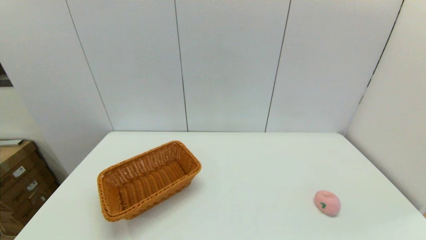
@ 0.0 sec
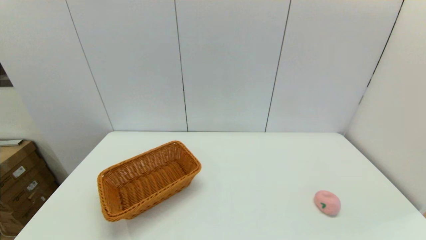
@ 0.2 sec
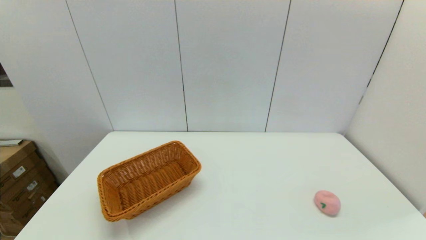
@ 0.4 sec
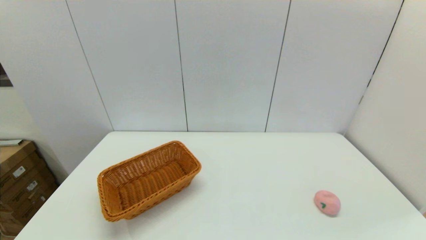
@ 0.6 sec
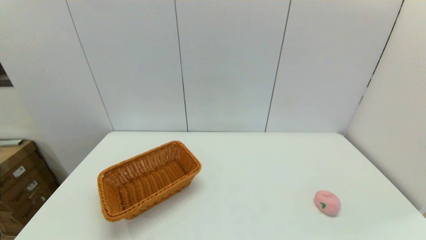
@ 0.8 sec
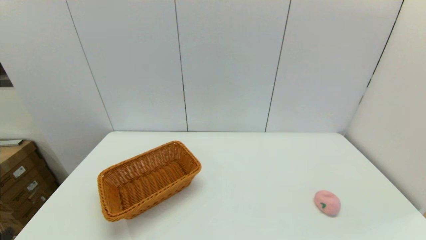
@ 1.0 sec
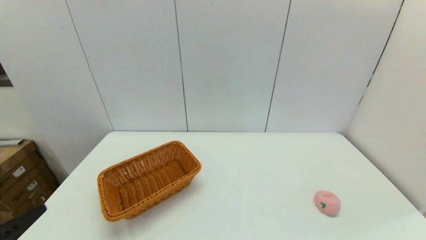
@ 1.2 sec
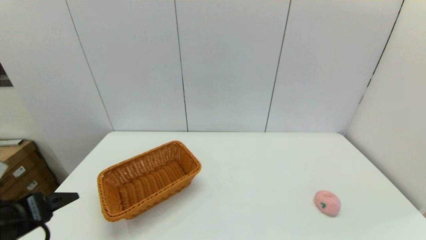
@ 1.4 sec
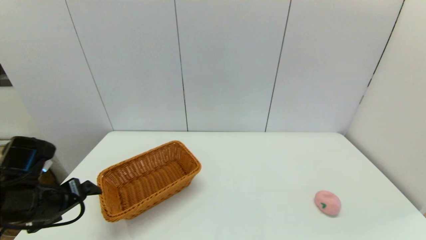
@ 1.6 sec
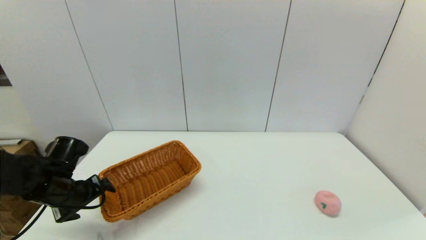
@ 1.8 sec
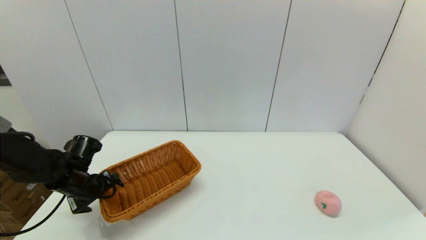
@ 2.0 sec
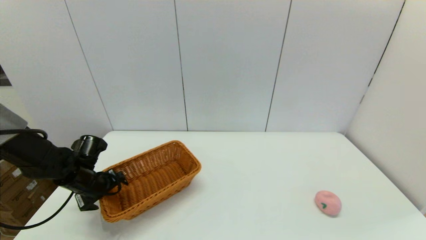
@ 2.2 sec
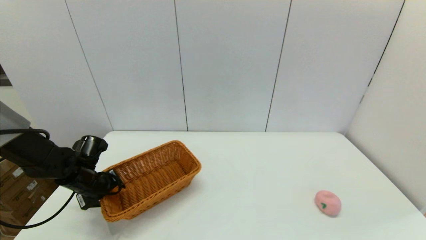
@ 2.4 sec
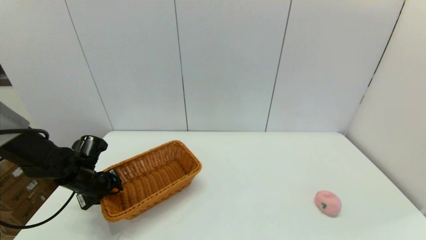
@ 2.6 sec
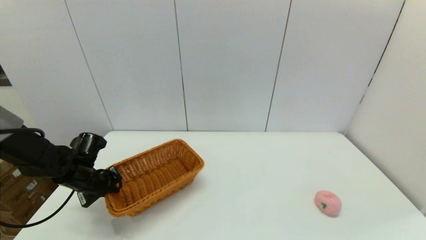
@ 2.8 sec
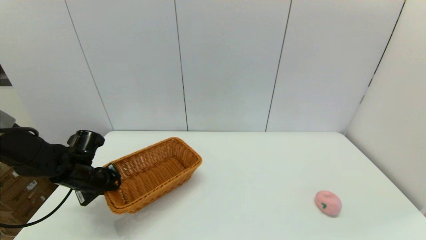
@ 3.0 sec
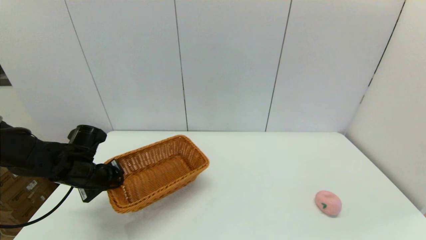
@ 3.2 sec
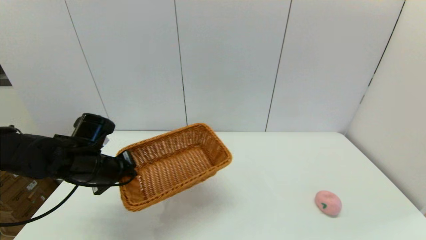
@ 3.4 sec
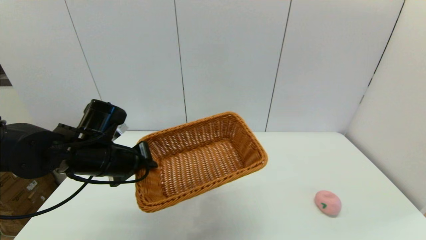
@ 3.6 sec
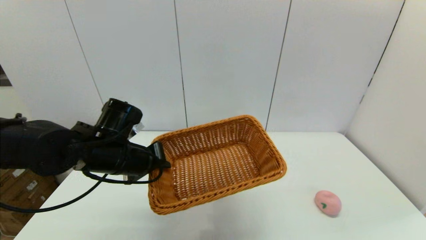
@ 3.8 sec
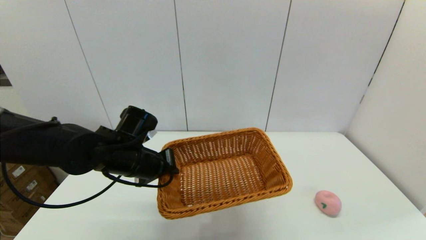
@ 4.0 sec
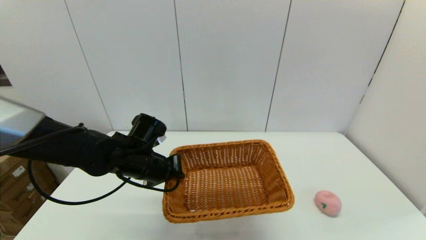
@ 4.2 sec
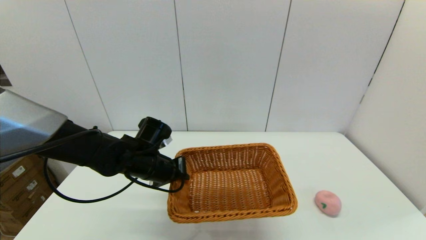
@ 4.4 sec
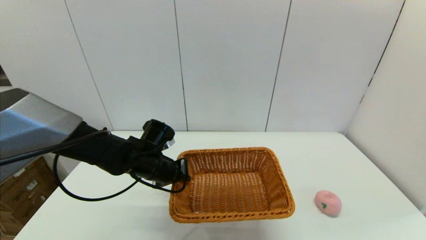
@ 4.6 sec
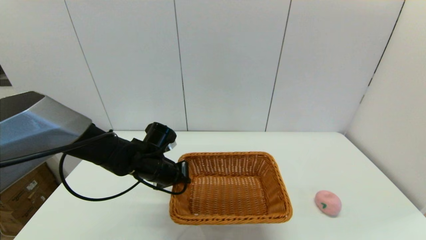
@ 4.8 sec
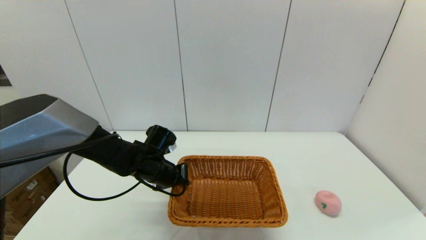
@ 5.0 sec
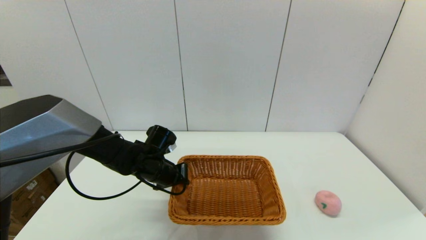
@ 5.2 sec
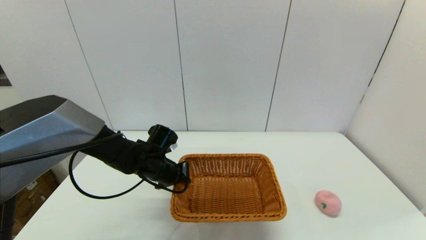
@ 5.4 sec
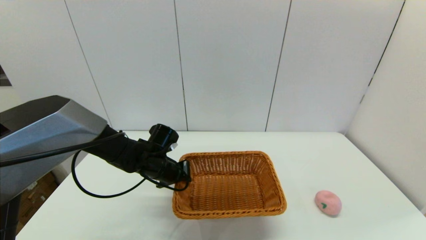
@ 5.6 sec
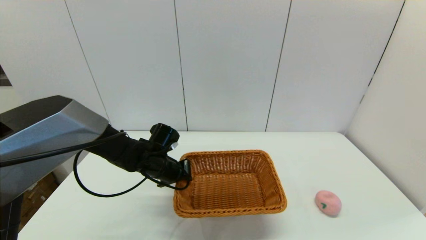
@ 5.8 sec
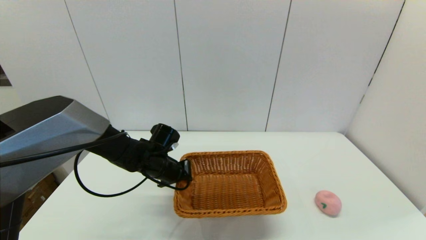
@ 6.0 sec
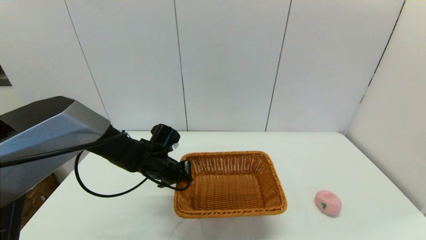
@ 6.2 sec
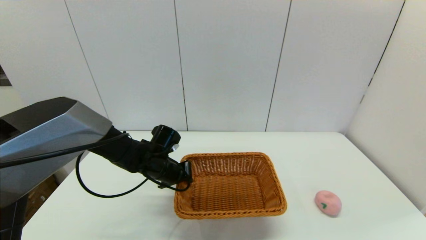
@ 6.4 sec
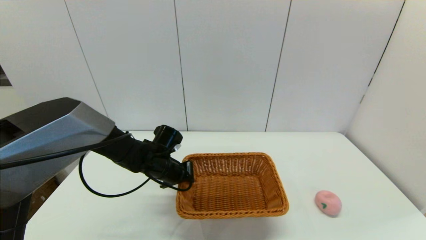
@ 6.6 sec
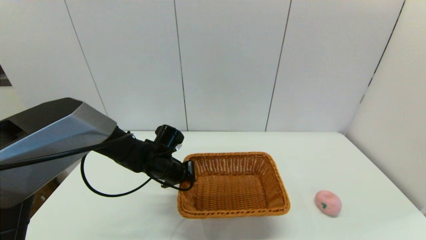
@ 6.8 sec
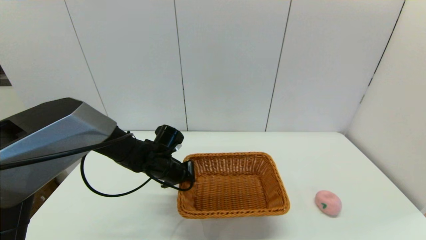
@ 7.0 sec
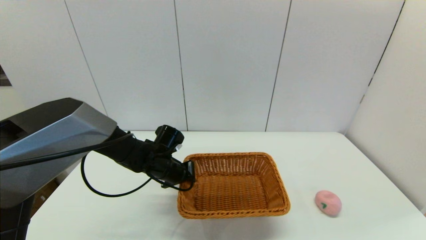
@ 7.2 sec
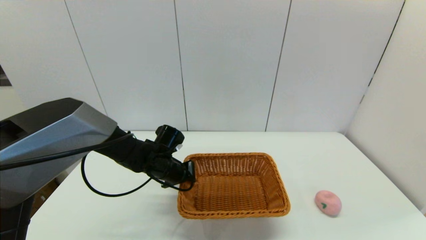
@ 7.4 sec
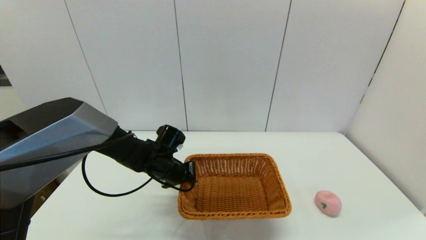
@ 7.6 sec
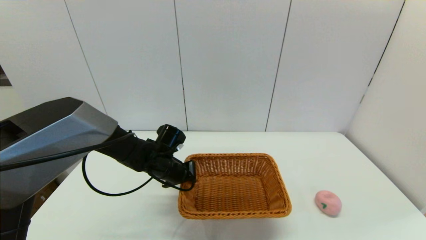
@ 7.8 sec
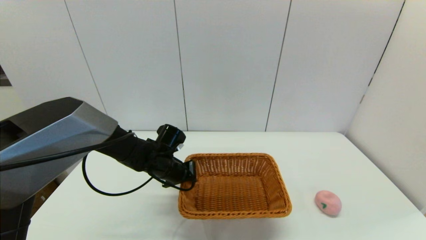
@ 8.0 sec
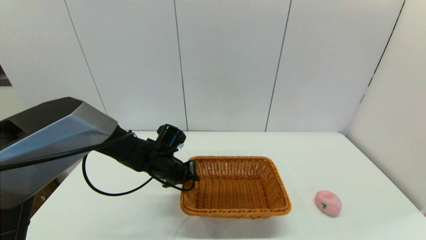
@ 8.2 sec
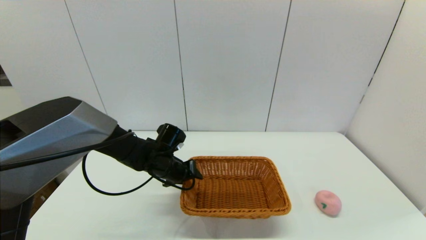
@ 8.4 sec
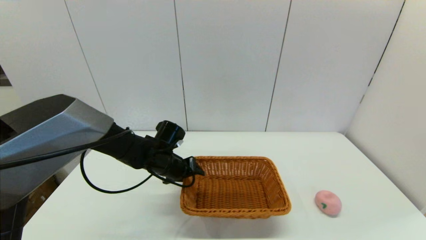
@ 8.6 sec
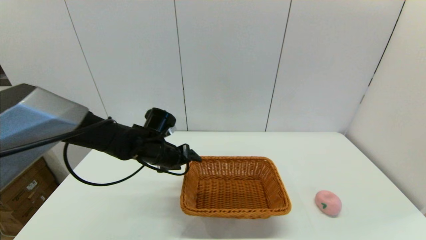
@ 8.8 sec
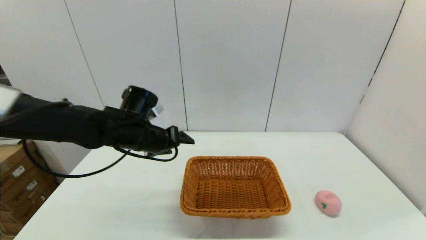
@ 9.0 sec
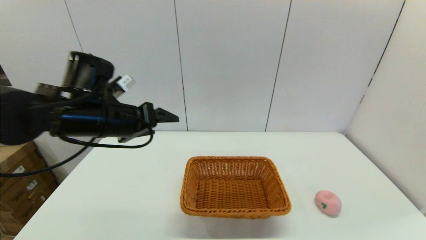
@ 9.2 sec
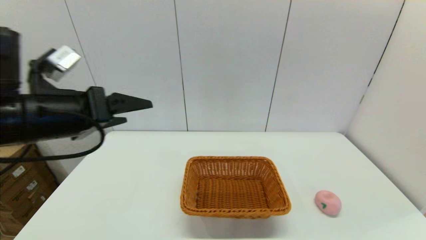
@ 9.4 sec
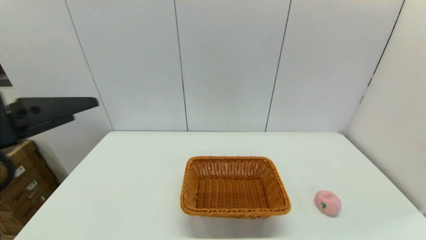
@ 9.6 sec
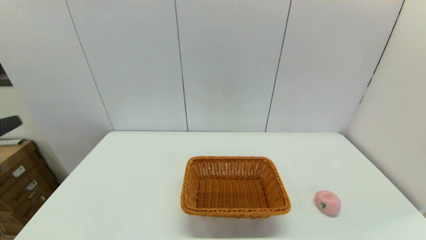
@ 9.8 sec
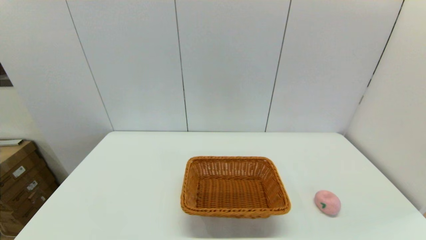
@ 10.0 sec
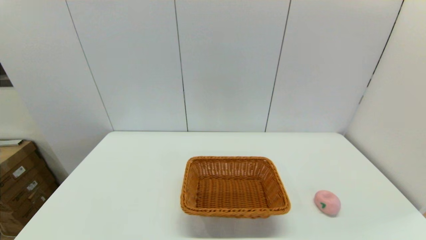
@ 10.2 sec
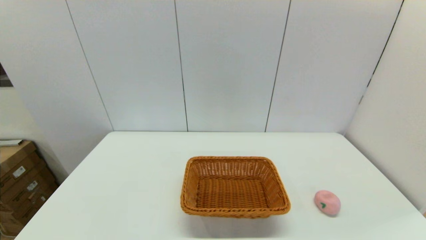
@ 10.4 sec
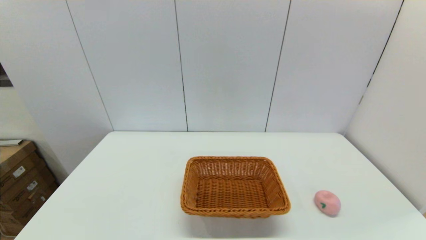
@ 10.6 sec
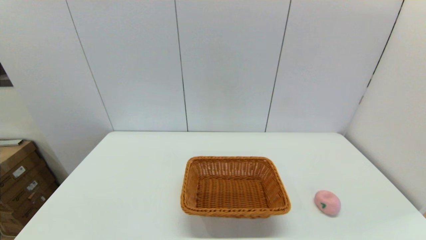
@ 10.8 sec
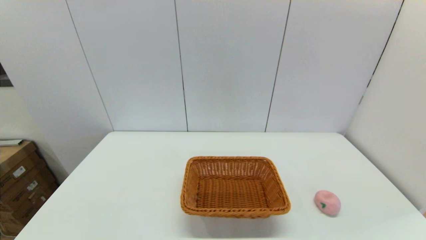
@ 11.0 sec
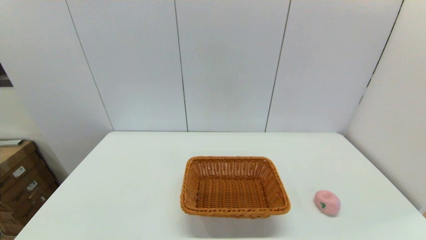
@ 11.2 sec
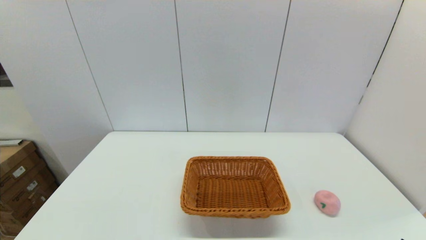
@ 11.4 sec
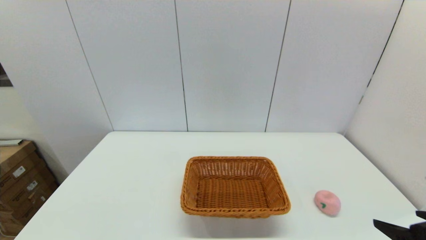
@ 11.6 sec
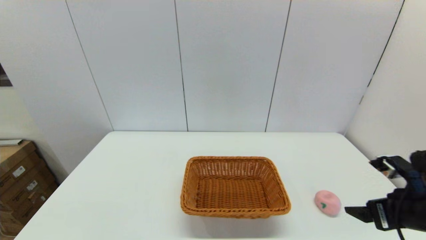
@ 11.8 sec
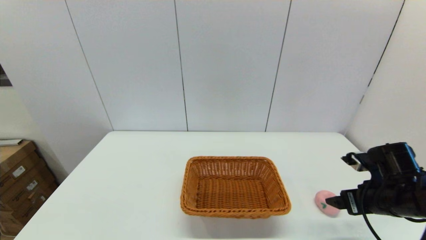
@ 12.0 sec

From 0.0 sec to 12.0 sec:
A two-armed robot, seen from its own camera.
Step, from 0.0 sec to 2.8 sec: Grasp the light basket with the left gripper.
Step, from 3.2 sec to 8.4 sec: Place the light basket on the middle of the table with the left gripper.
From 0.0 sec to 1.6 sec: The left gripper moves forward, some 20 cm.
From 1.6 sec to 3.0 sec: The left gripper goes some 10 cm forward and downward, and closes up.
From 3.0 sec to 4.4 sec: The left gripper goes approximately 15 cm to the right.
From 4.4 sec to 6.0 sec: The left gripper changes place by roughly 5 cm.
From 6.0 sec to 7.6 sec: The two grippers keep their place.
From 7.6 sec to 9.0 sec: The left gripper moves upward, about 10 cm, and opens.
From 9.0 sec to 10.4 sec: The left gripper is displaced backward and to the left by roughly 35 cm.
From 10.4 sec to 12.0 sec: The right gripper travels forward by approximately 25 cm.

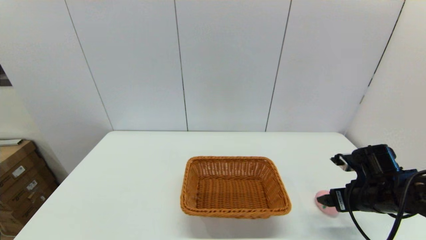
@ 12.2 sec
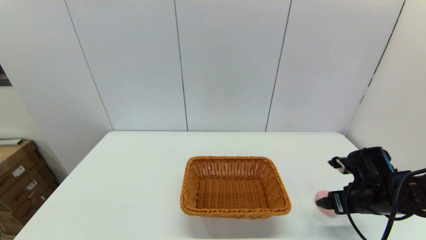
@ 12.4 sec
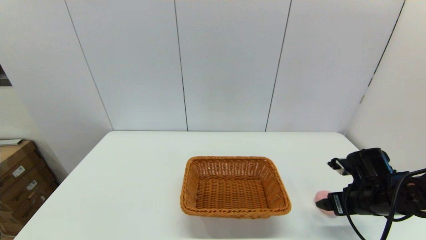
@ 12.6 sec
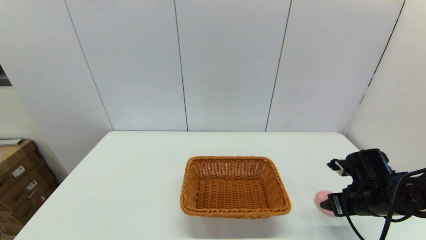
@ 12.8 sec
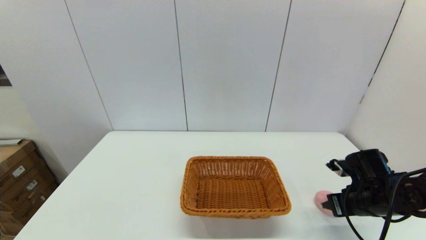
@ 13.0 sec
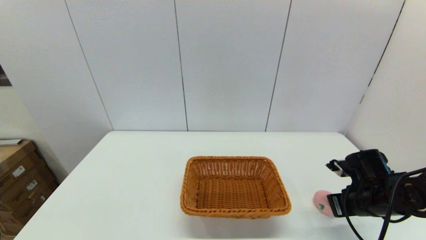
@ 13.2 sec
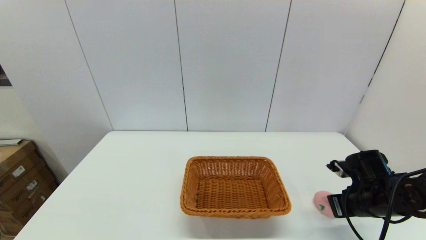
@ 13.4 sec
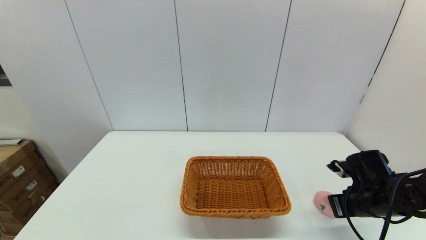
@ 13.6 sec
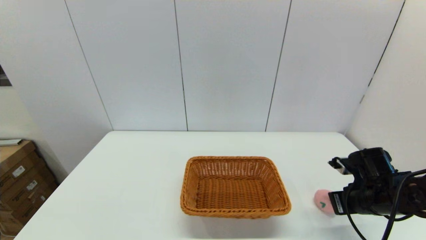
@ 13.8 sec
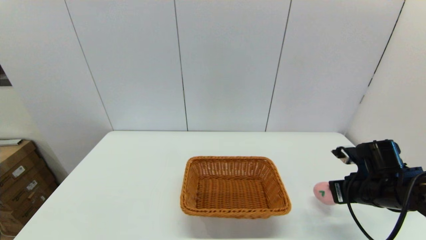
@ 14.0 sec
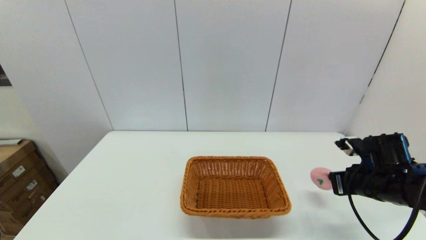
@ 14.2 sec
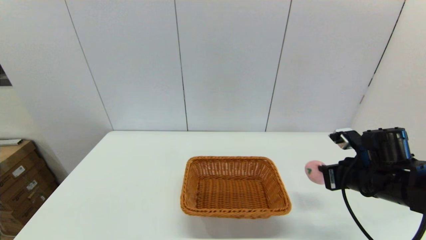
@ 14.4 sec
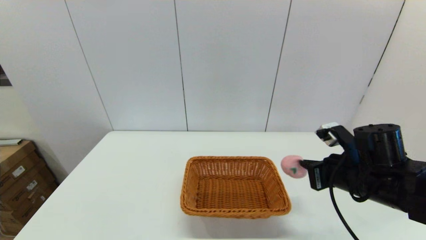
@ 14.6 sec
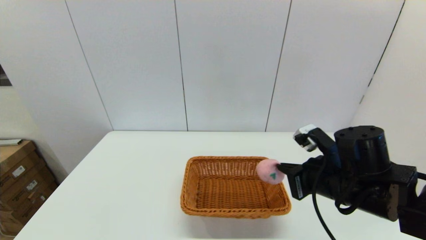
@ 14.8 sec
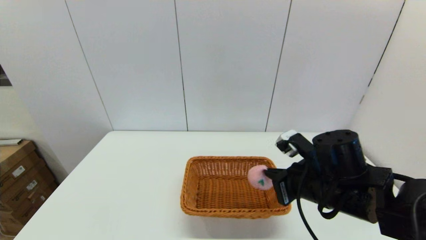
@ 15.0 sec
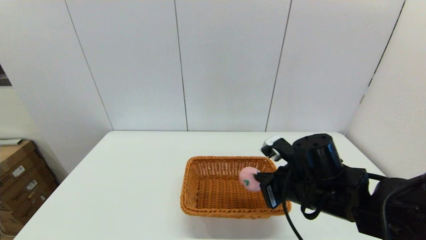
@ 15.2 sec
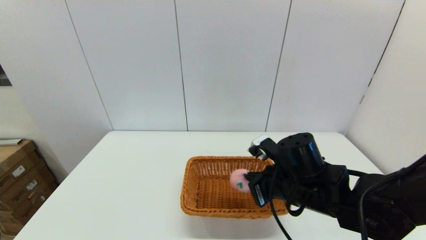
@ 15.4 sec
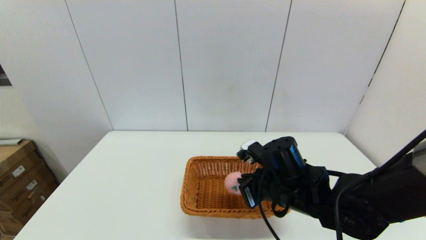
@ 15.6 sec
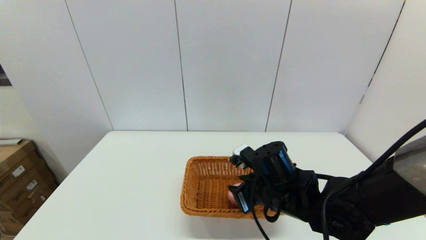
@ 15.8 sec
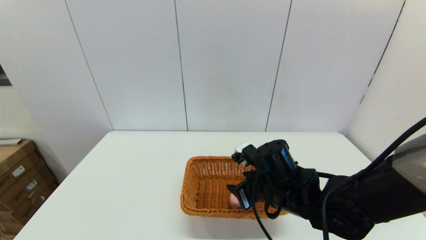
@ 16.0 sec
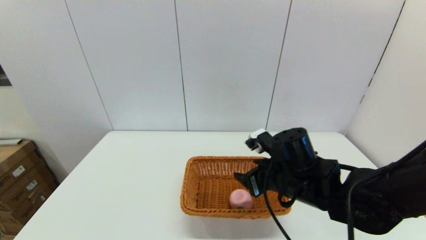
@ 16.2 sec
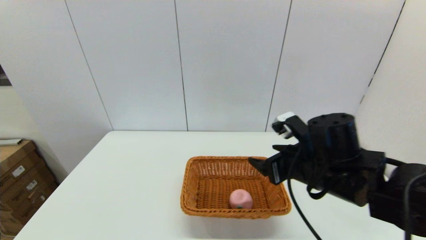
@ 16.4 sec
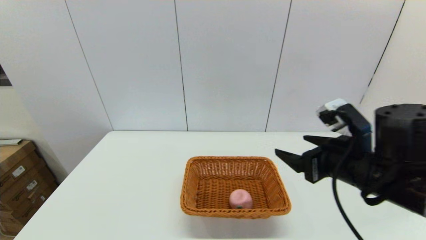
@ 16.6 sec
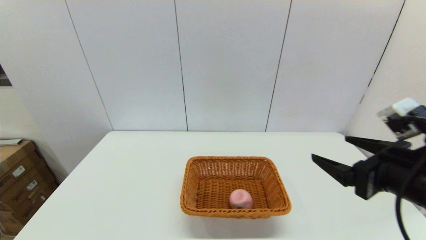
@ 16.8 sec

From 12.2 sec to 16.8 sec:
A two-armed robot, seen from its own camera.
Step, from 13.4 sec to 15.8 sec: Place the peach into the light basket with the right gripper.
From 12.2 sec to 13.8 sec: The right gripper closes its fingers.
From 13.8 sec to 15.2 sec: The right gripper shifts about 15 cm to the left.
From 15.2 sec to 16.8 sec: The right gripper travels upward, to the right and backward by about 15 cm, and opens.
